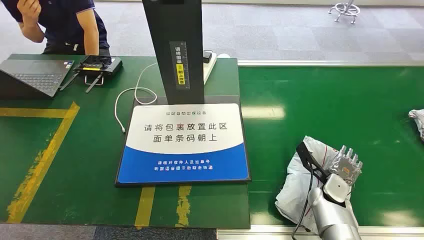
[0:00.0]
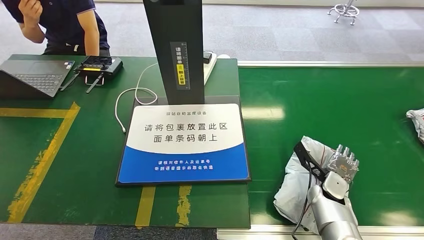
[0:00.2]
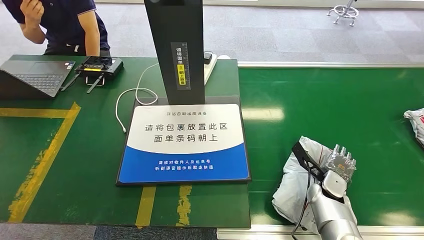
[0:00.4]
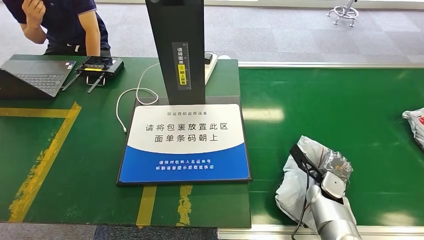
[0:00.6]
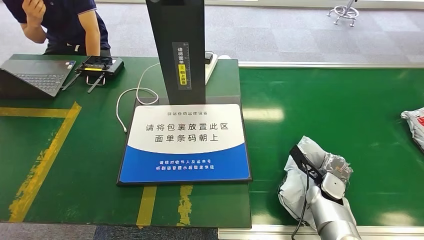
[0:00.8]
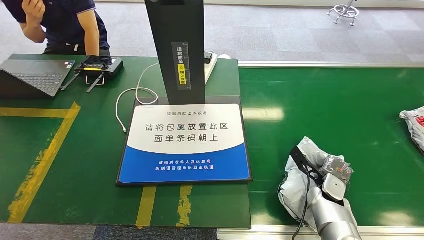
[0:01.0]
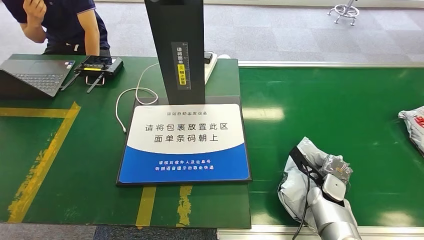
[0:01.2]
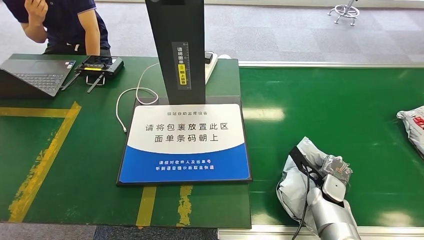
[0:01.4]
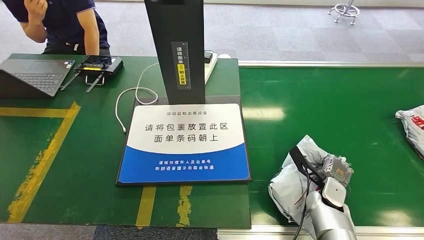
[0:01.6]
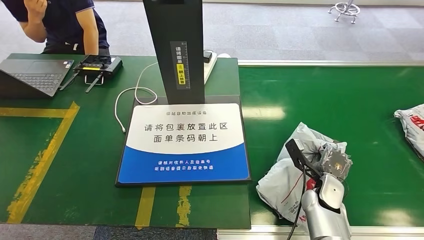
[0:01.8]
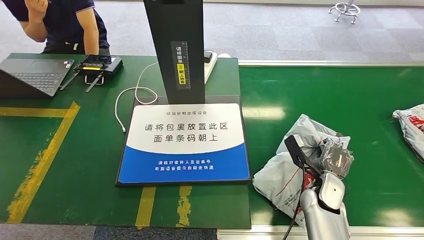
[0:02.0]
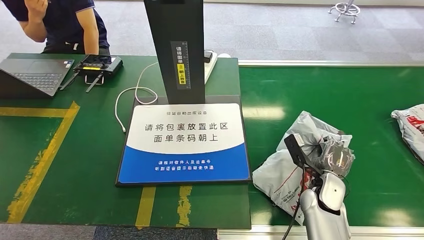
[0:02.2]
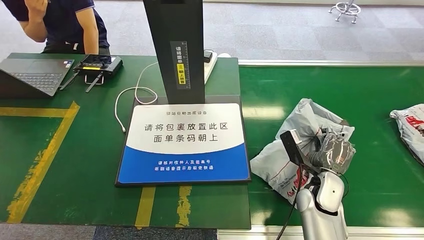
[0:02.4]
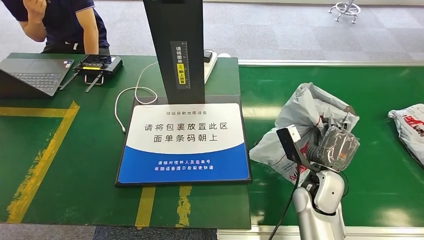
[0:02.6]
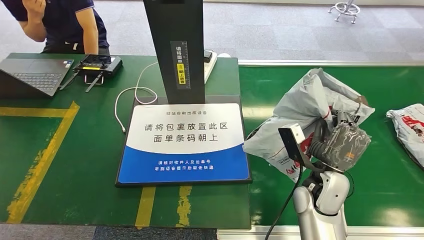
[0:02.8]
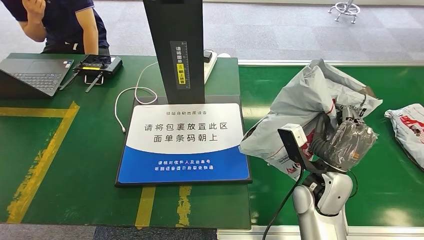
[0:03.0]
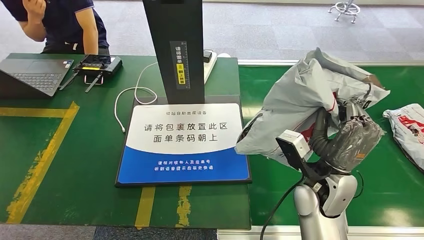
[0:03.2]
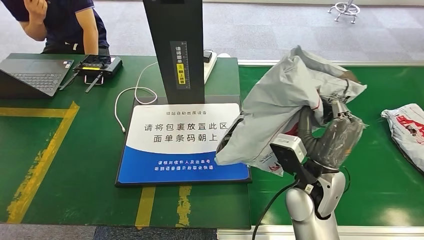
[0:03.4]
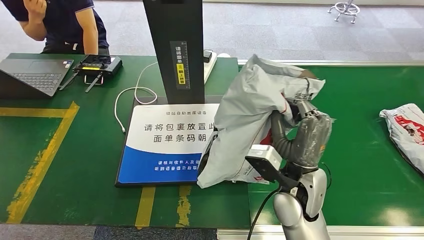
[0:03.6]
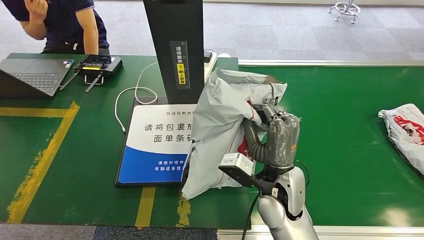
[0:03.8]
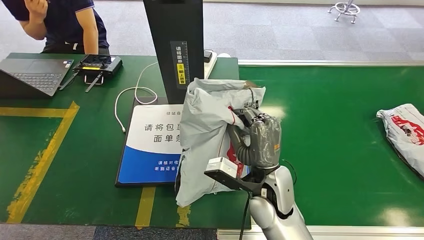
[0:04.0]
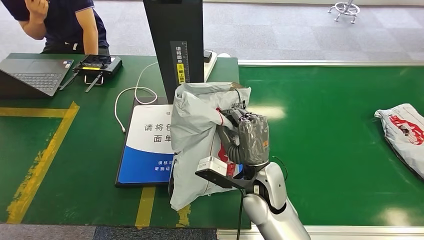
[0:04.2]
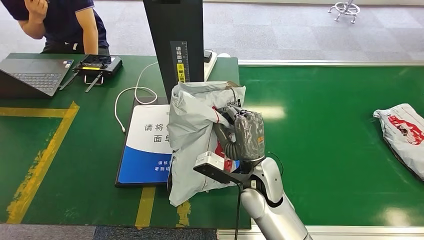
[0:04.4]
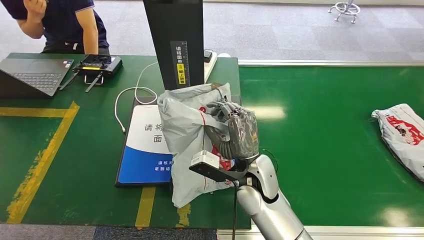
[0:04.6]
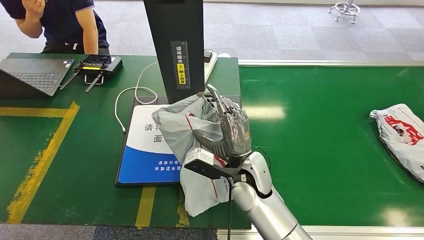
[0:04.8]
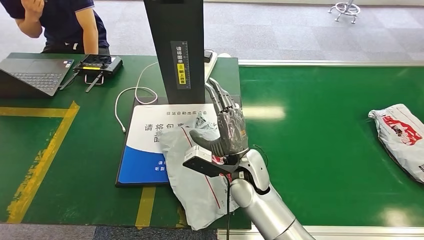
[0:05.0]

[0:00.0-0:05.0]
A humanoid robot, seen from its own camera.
Step, 0:00.0 to 0:02.6: Pick up the package from the conveyor belt.
Step, 0:02.8 to 0:05.0: Place the package onto the inbound machine.
